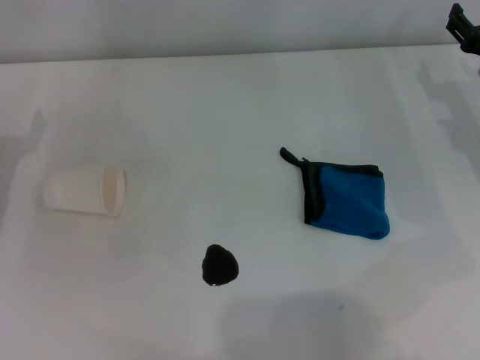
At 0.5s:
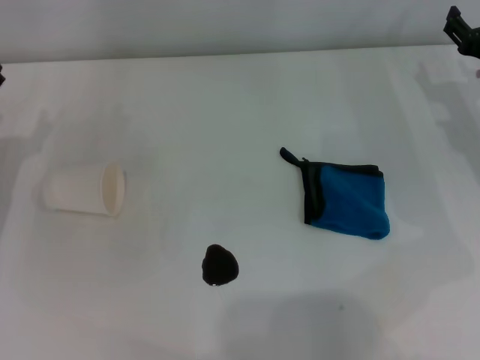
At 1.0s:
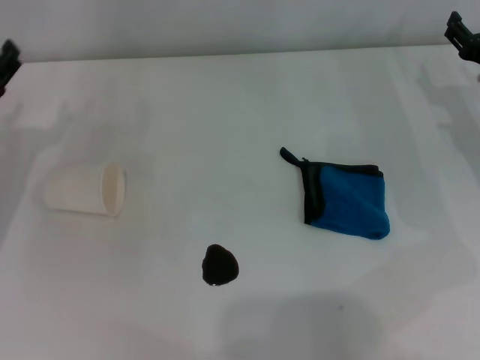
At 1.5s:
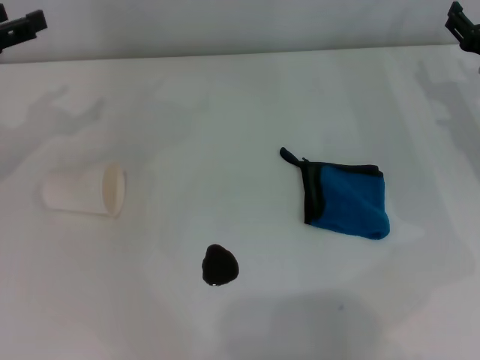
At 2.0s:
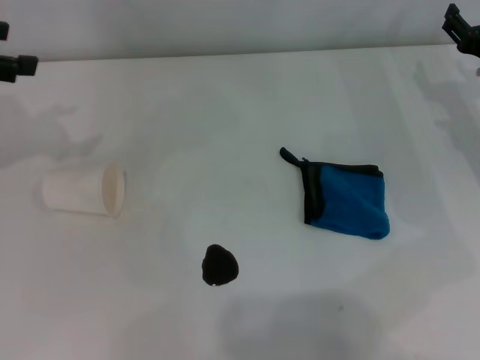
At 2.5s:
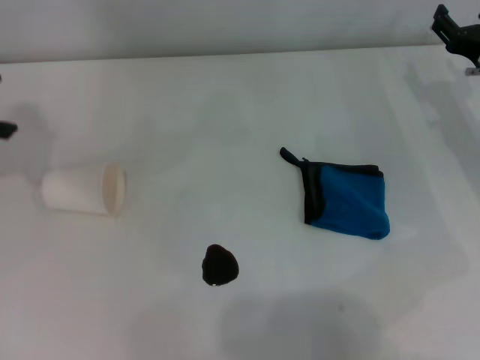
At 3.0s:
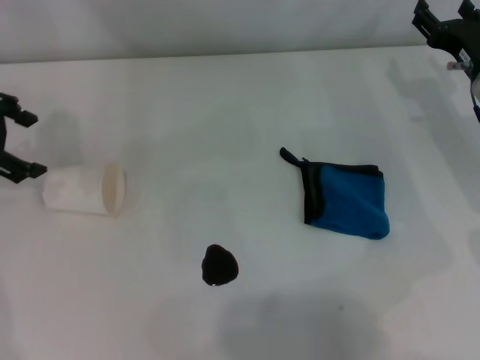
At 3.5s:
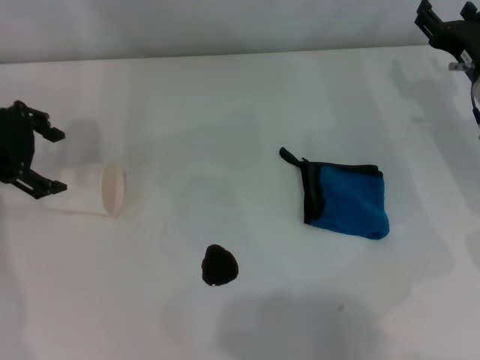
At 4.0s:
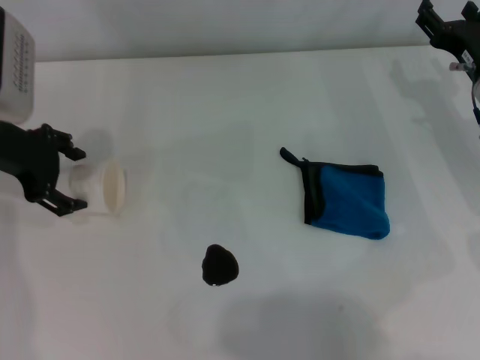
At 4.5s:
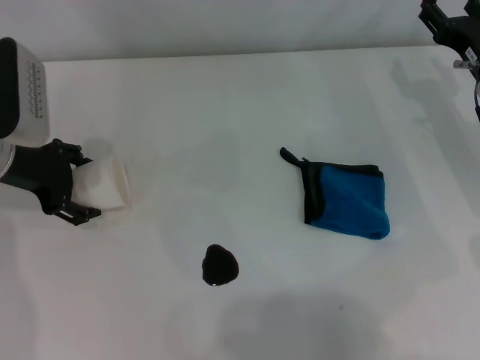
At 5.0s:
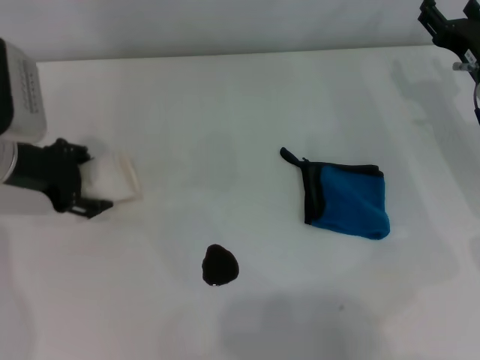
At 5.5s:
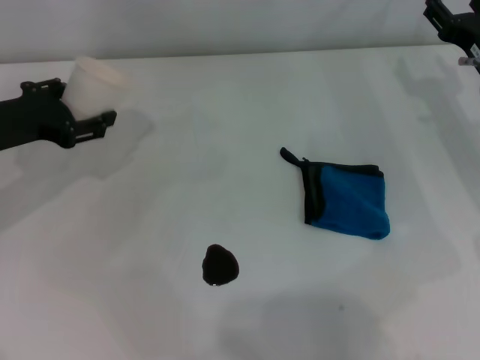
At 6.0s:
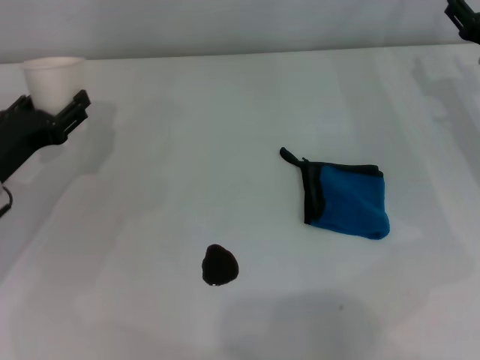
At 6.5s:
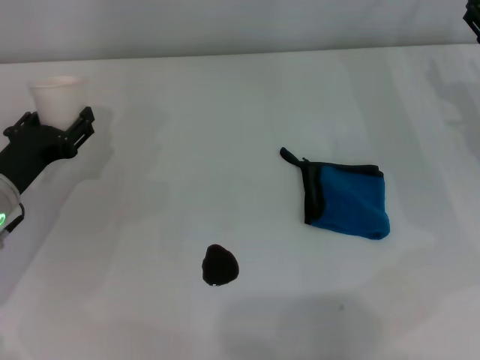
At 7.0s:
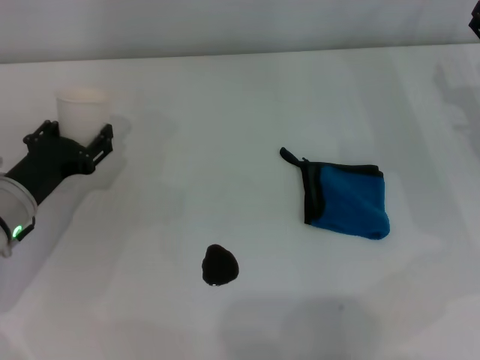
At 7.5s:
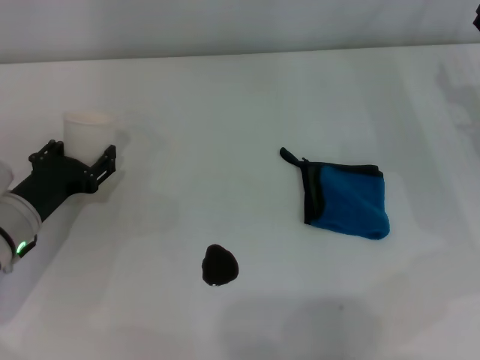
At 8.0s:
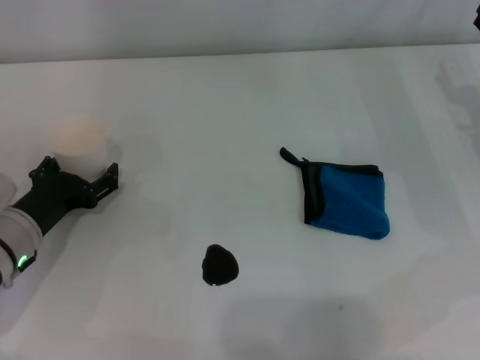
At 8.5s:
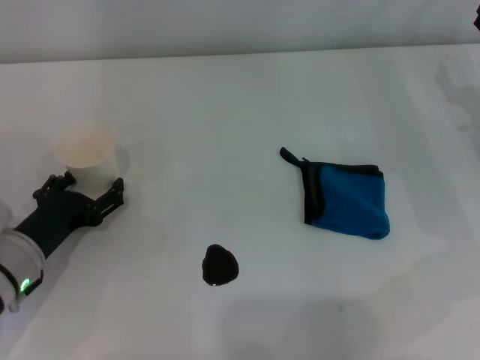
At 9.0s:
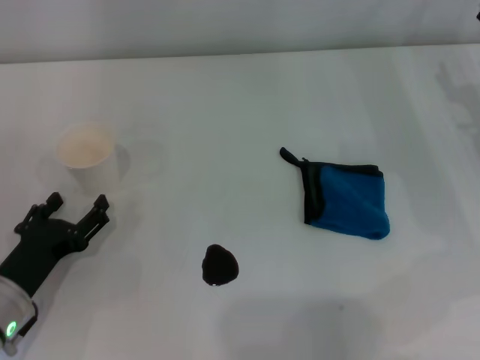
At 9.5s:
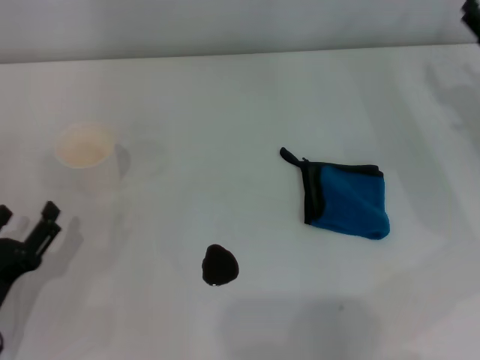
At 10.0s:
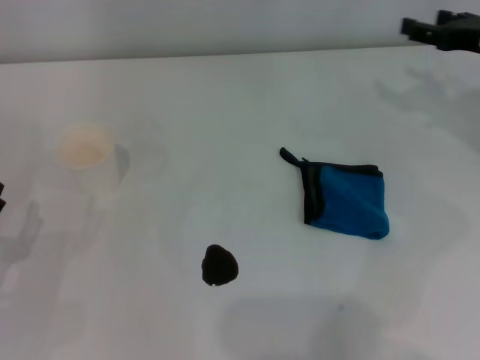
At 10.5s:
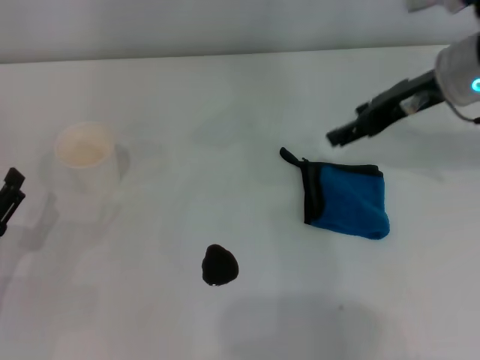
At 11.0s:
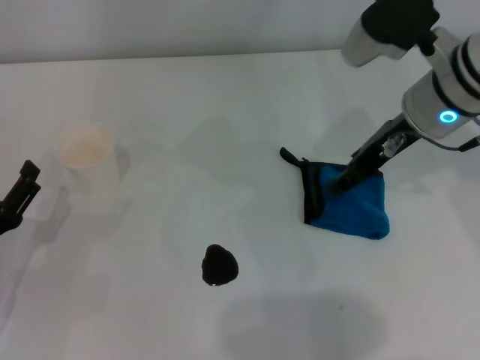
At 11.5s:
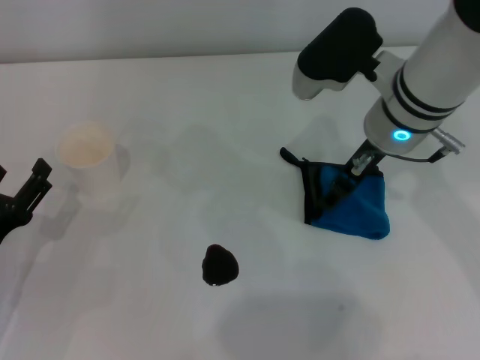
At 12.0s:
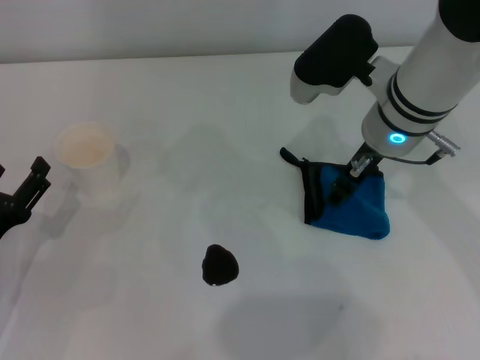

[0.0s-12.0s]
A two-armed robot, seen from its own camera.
Step, 0.0s to 4.0s: Grasp the paper cup with the left gripper.
Step, 5.0s to 8.5s: Stand the paper cup upright with the left gripper.
0.0s to 2.0s: The left gripper is displaced upward by about 20 cm.
2.0s to 4.0s: The left gripper heads downward and to the right, covering roughly 10 cm.
4.0s to 6.0s: The left gripper heads downward and backward, covering about 10 cm, and closes up.
6.0s to 8.0s: The left gripper heads downward, covering about 5 cm, and opens up.
8.0s to 10.0s: The left gripper shifts approximately 10 cm backward and to the left. Meanwhile the right gripper is displaced upward by approximately 5 cm.
10.0s to 12.0s: The right gripper goes about 20 cm to the left.

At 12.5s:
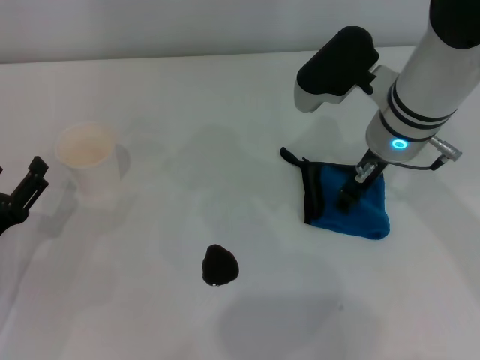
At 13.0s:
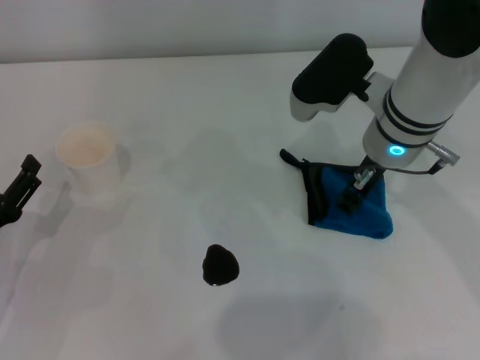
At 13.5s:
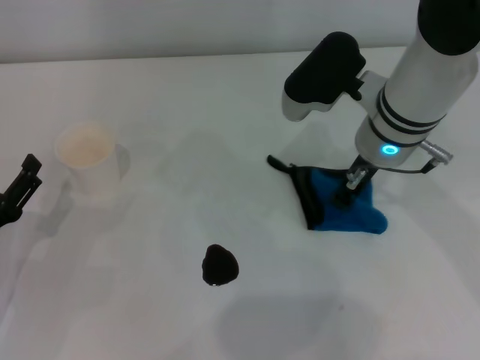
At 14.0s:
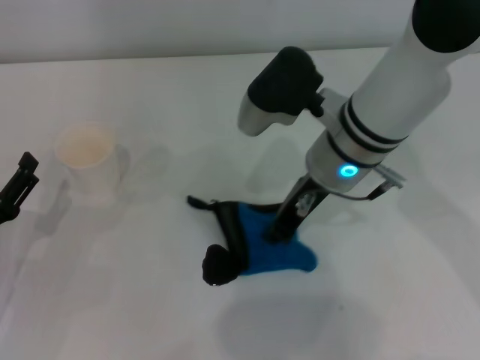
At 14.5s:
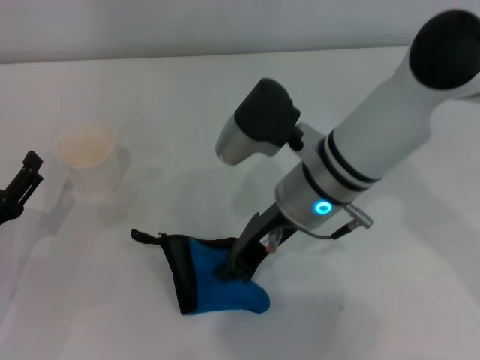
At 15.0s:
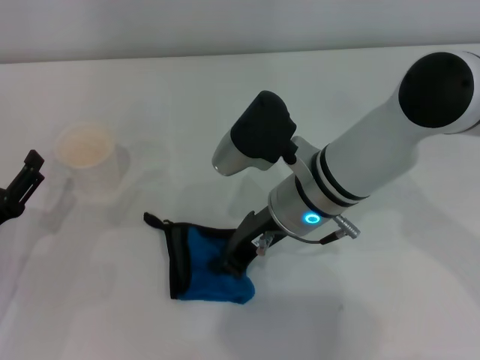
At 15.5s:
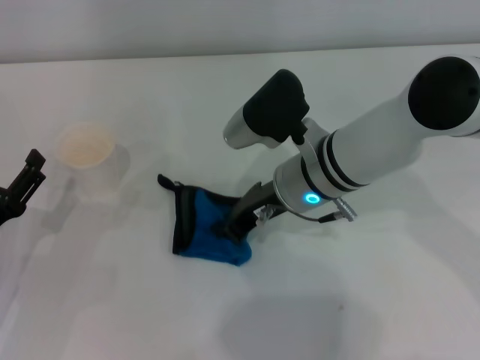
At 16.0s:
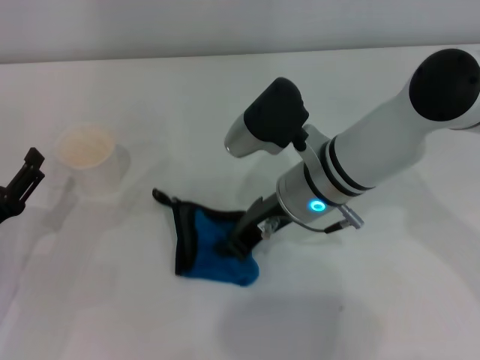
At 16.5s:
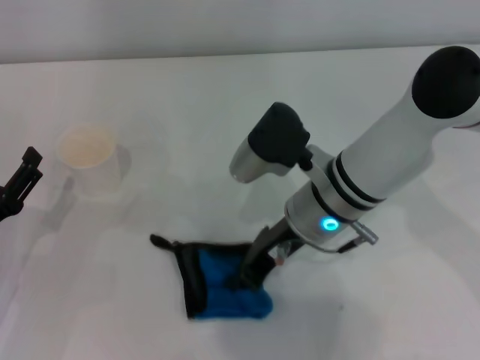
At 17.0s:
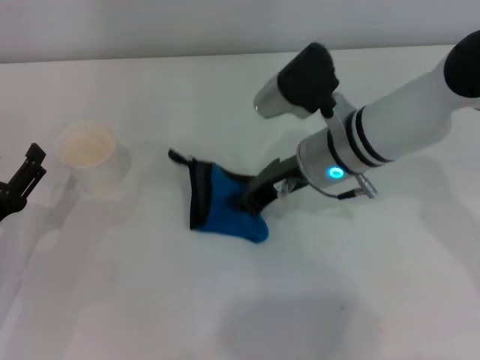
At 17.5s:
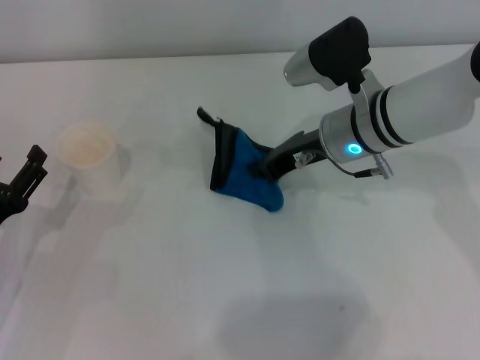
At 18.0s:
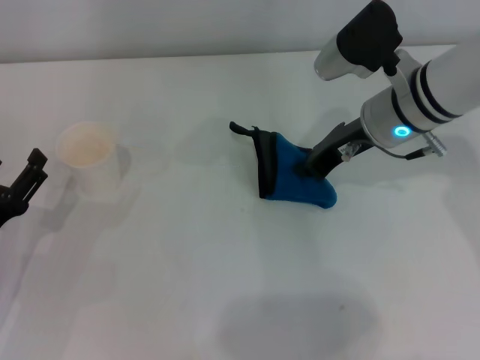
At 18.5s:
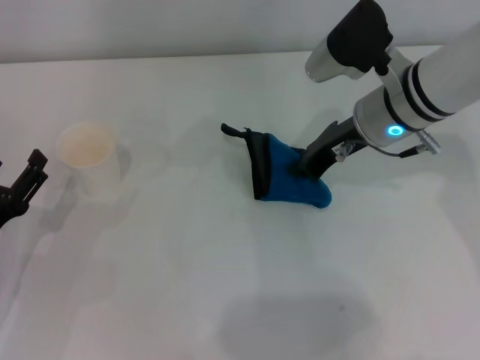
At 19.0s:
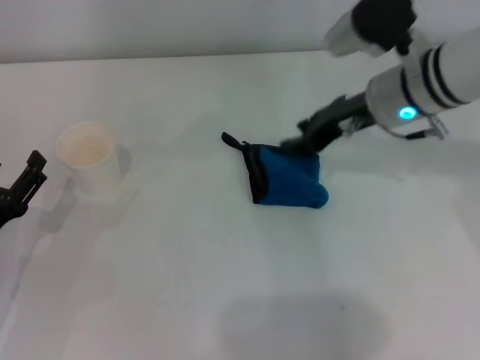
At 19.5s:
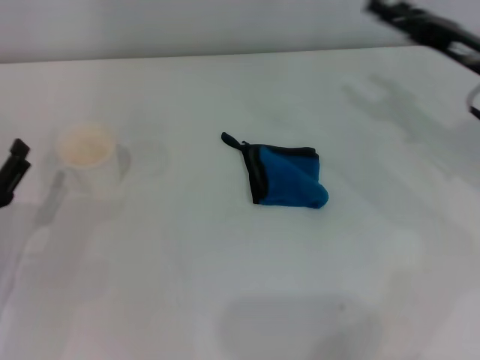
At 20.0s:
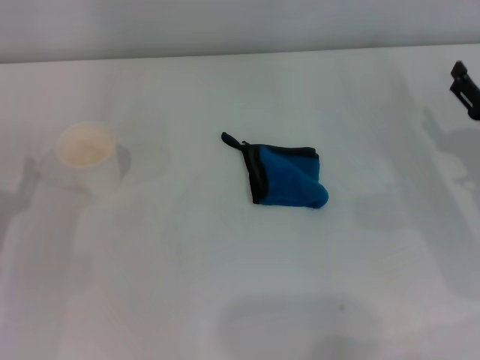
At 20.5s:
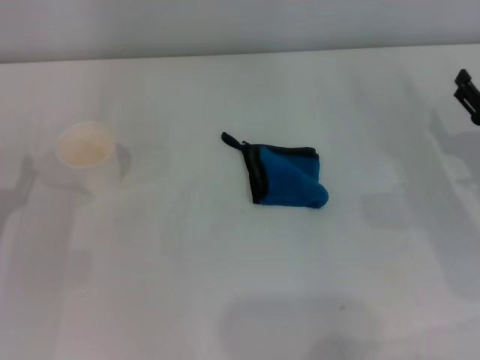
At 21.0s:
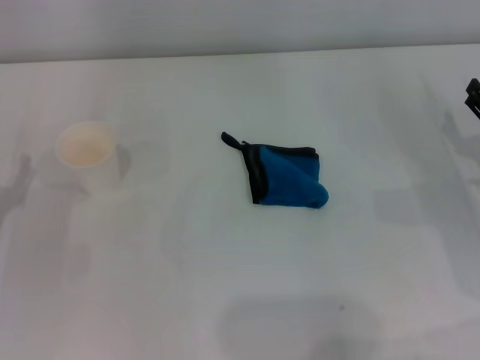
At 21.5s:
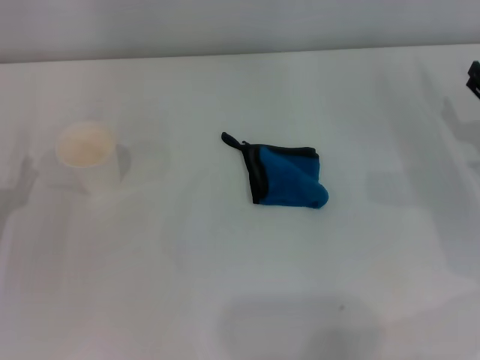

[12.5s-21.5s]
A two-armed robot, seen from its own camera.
Step, 13.5s to 17.5s: Wipe the stains off the table with the right gripper.
Step, 18.0s to 18.5s: Place the rag on the table with the right gripper.
12.5s to 14.5s: The right gripper shifts some 10 cm to the left, and closes.
14.5s to 17.0s: The right gripper ends up approximately 5 cm from where it was.
17.0s to 19.5s: The right gripper goes about 20 cm to the right, and opens.
19.5s to 21.5s: The right gripper goes roughly 10 cm downward.
